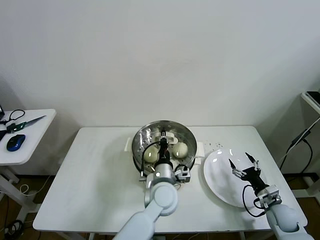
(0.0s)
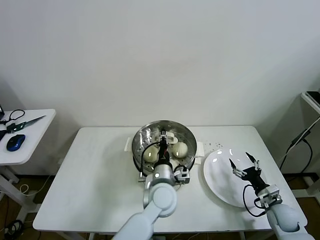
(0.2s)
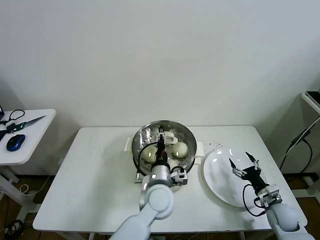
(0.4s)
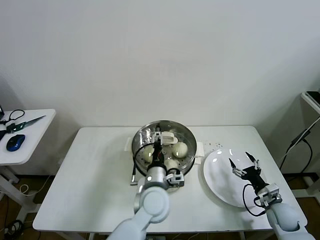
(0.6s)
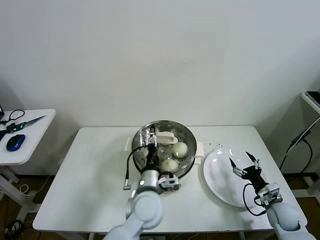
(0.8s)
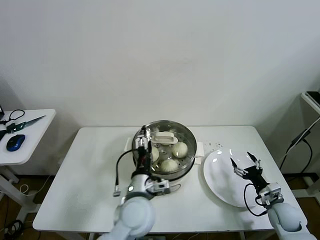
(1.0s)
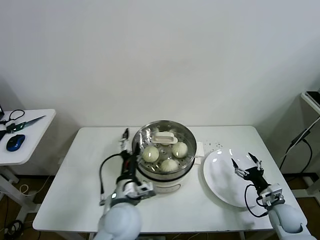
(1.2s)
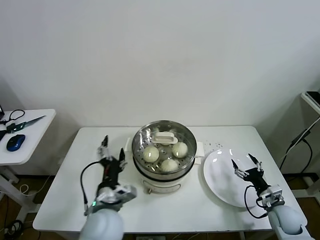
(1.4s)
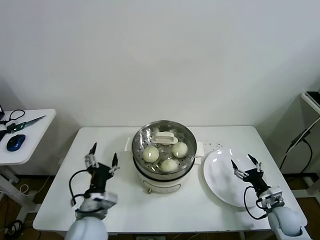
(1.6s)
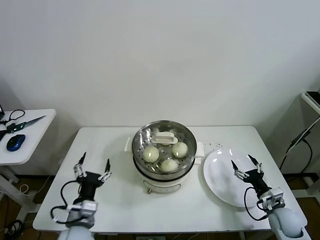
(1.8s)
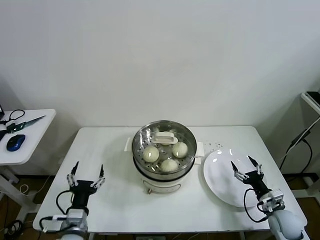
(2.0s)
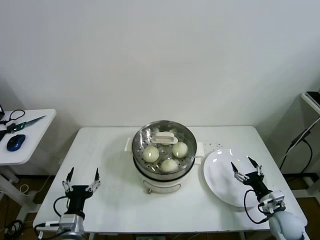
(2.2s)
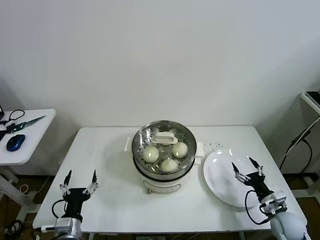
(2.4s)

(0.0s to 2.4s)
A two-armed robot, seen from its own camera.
Task of the whole recording: take steamed baozi put them in steamer then cover it.
0.0s - 1.2s: The left gripper travels to the left and backward by about 10 cm, and opens up.
1.2s - 2.4s: The left gripper is displaced to the left, downward and backward by approximately 25 cm.

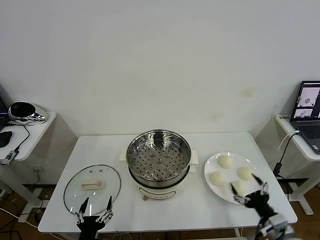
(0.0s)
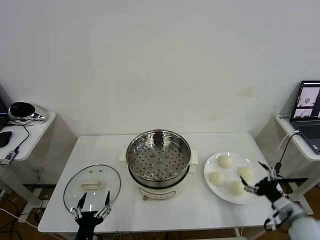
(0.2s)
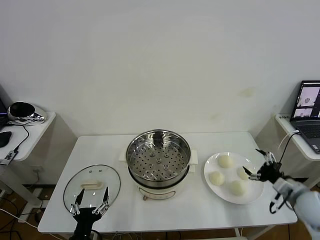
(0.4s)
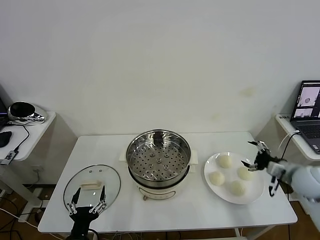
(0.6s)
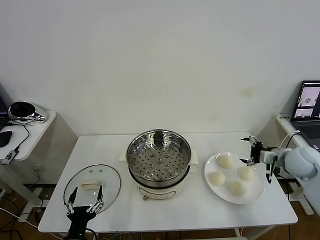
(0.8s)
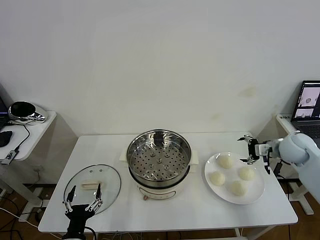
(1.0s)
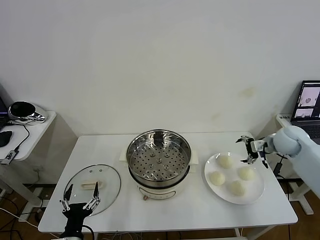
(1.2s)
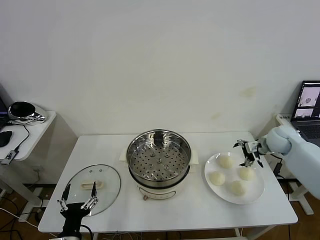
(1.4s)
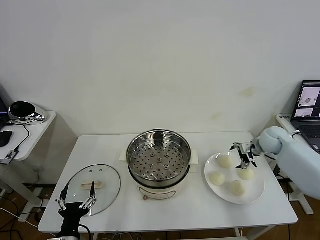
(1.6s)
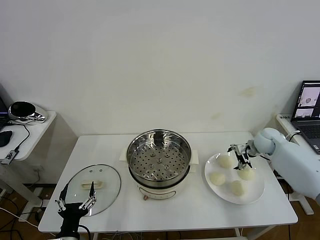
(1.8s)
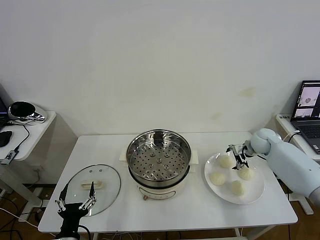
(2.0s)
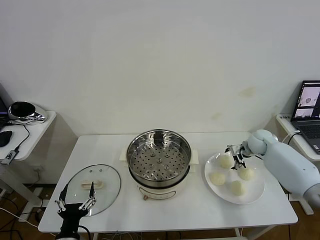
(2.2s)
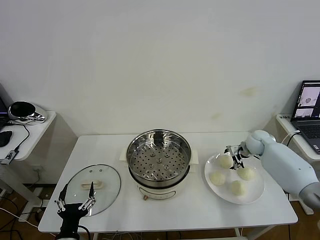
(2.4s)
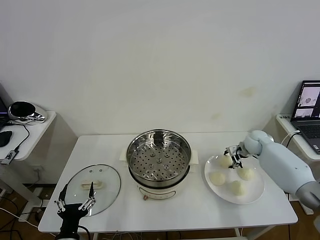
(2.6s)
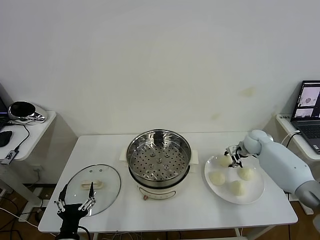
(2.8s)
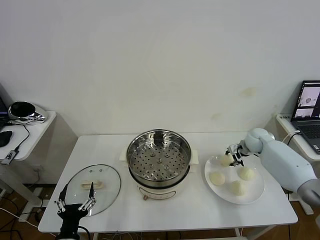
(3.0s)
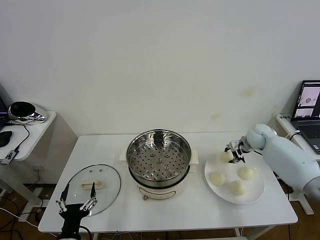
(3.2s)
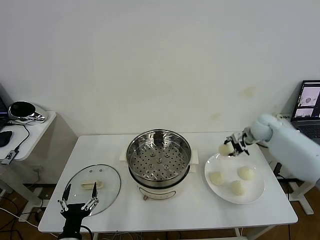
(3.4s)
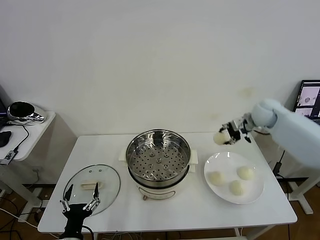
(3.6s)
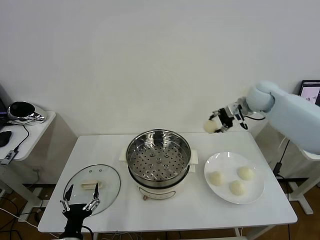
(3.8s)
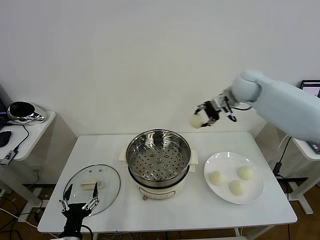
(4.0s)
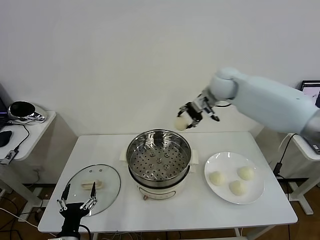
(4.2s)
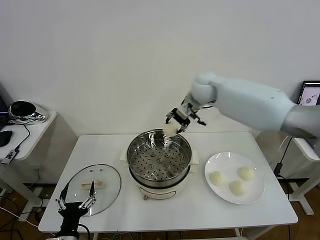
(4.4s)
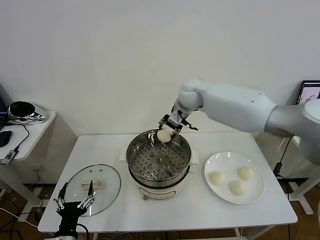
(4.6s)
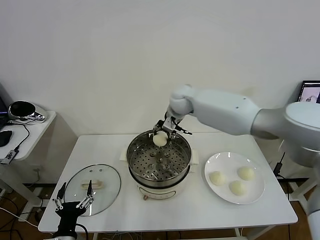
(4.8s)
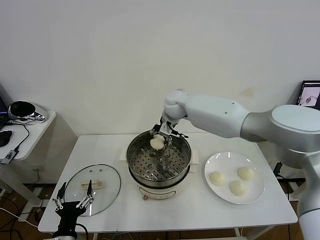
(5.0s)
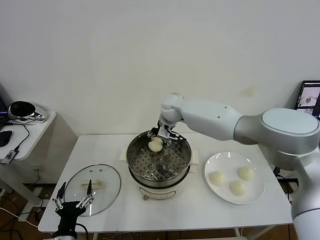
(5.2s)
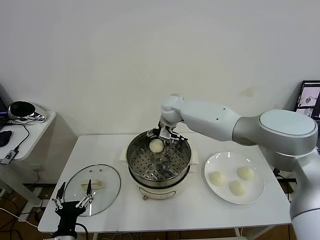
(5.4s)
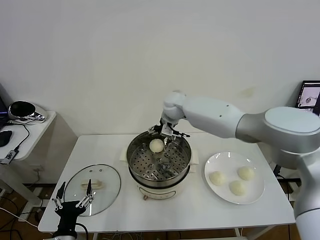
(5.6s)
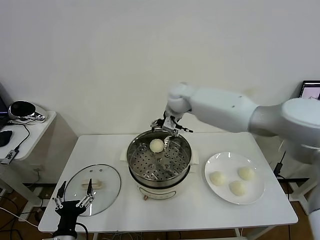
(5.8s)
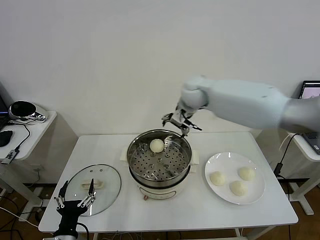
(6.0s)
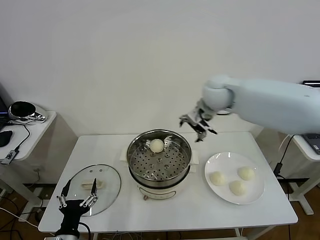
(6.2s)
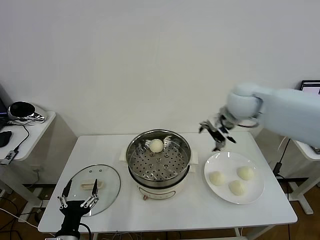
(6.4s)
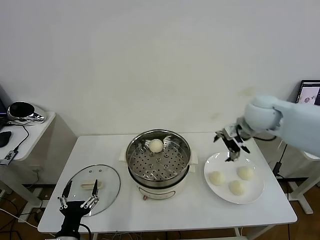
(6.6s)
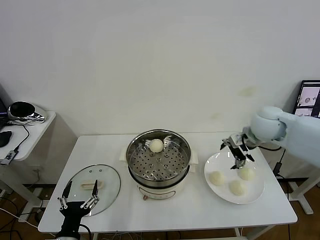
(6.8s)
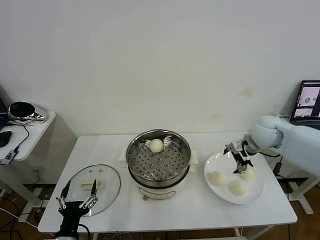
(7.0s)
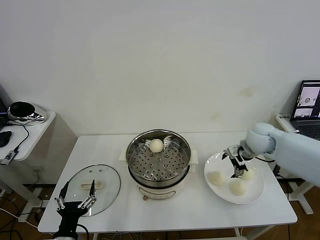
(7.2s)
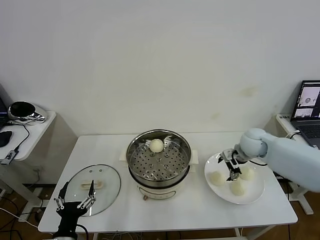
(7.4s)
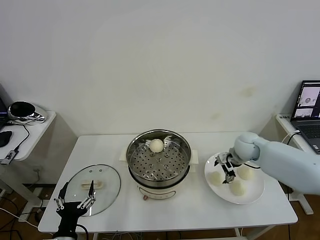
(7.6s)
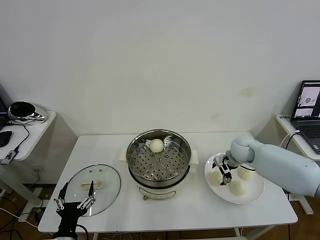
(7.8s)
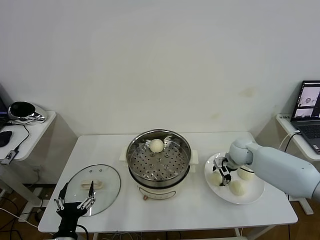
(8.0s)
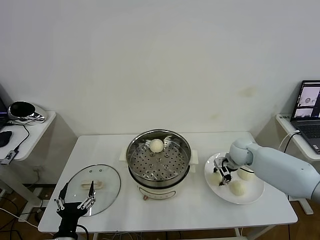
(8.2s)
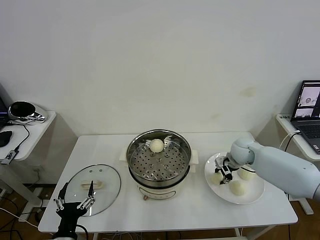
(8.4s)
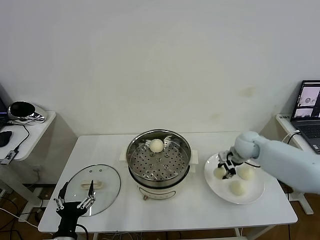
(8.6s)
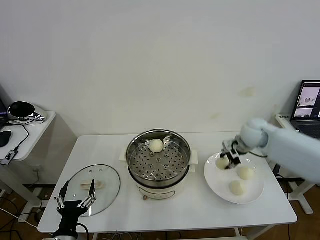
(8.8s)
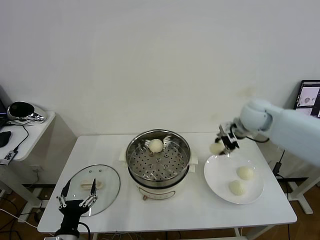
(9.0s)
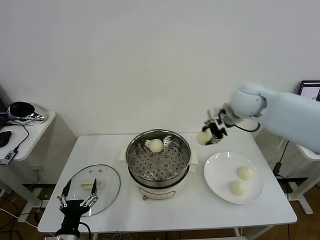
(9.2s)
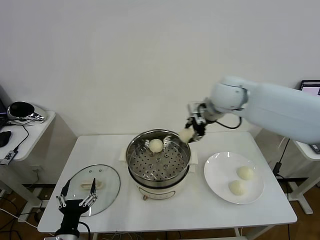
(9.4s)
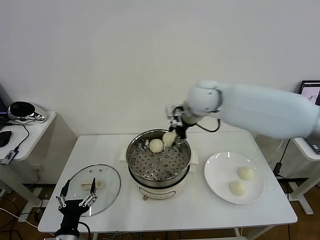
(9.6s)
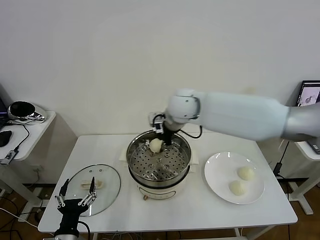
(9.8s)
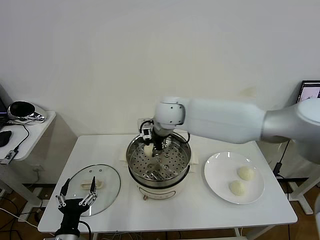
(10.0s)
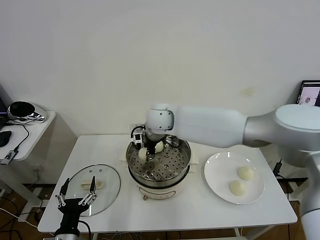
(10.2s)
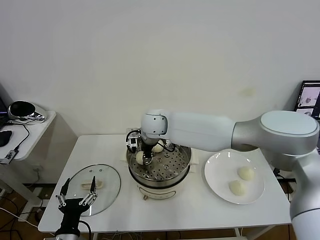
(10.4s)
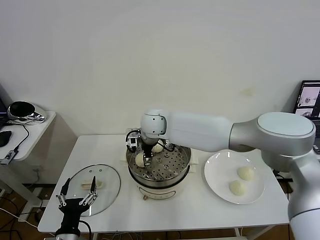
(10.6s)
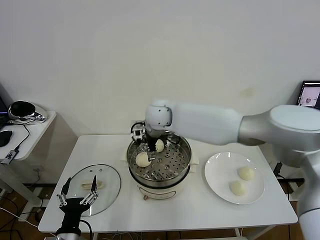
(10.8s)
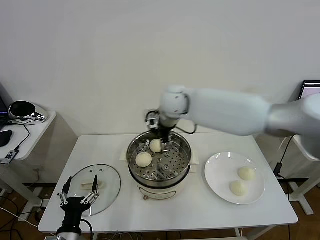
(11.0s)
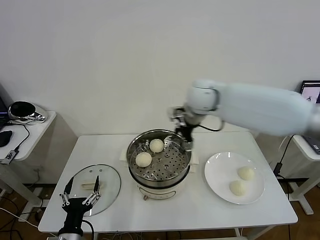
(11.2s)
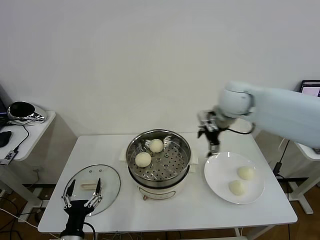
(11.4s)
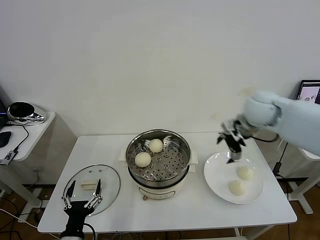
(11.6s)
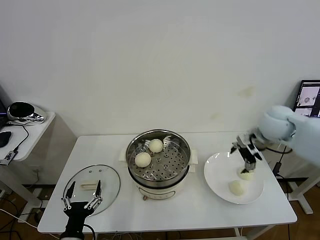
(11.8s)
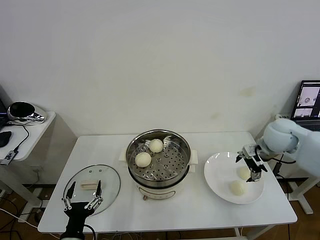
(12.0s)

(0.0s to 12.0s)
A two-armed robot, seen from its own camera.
Task of the whole recording: take steamed baozi put them in steamer then cover it.
Step, 0.0s - 2.6s: Grasp the baozi in the plate with right gripper.
Step, 2.8s - 5.6s: Place the baozi on the steamer with right gripper.
Step, 5.8s - 8.2s: Grasp the baozi in the plate with right gripper.
Step, 8.4s - 10.6s: Place the baozi on the steamer with right gripper.
1.6s - 3.0s: The right gripper changes place by roughly 5 cm, and closes up.
3.0s - 4.4s: The right gripper heads to the left and upward, covering roughly 35 cm.
4.4s - 6.0s: The right gripper moves about 10 cm downward and comes back, and opens its fingers.
6.0s - 7.6s: The right gripper moves to the right and downward, some 25 cm.
7.6s - 9.0s: The right gripper travels upward by roughly 15 cm, and closes.
9.0s - 10.4s: The right gripper goes approximately 30 cm to the left.
10.4s - 12.0s: The right gripper heads to the right, covering some 40 cm, and opens up.

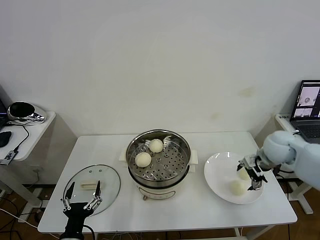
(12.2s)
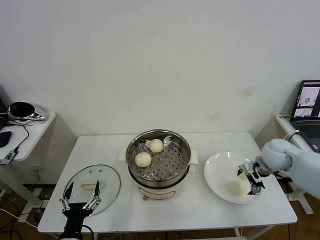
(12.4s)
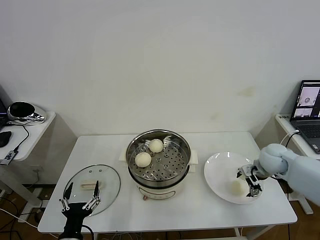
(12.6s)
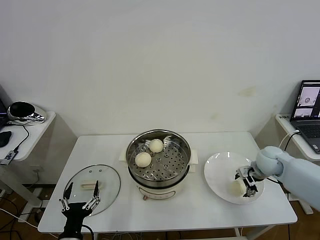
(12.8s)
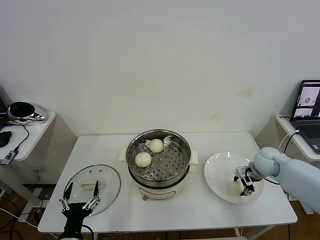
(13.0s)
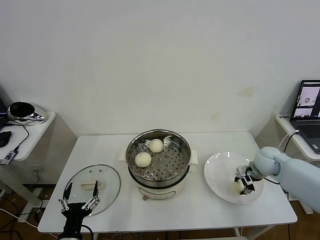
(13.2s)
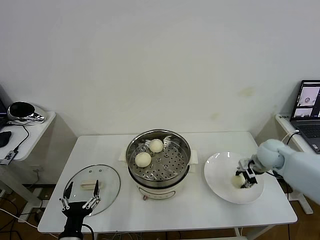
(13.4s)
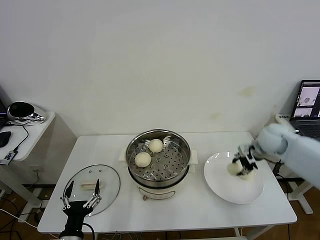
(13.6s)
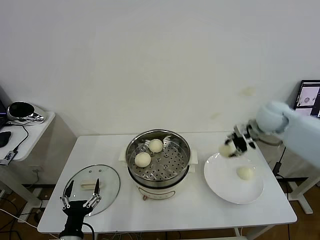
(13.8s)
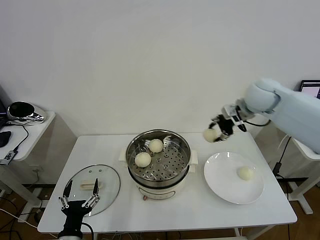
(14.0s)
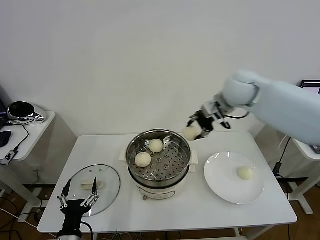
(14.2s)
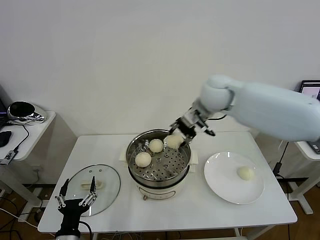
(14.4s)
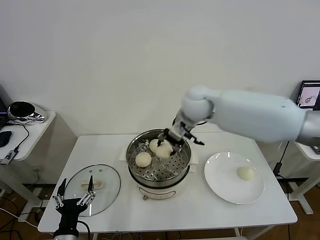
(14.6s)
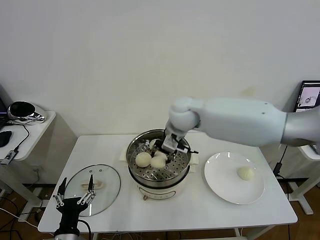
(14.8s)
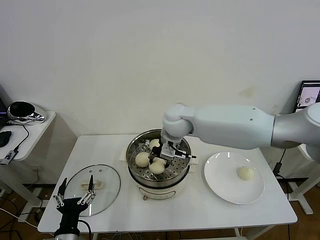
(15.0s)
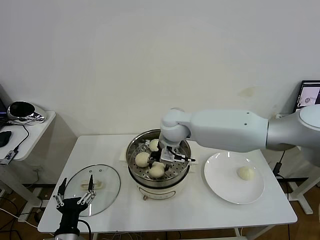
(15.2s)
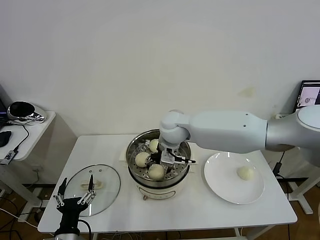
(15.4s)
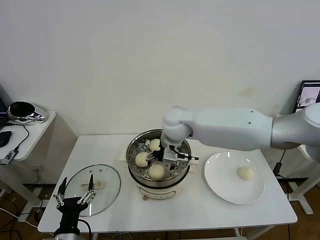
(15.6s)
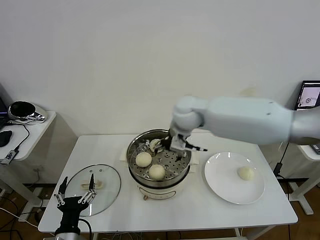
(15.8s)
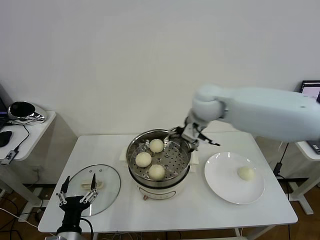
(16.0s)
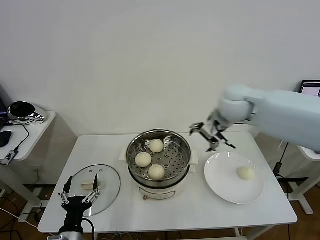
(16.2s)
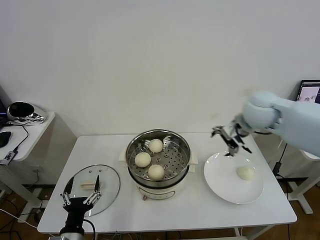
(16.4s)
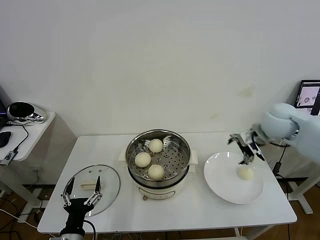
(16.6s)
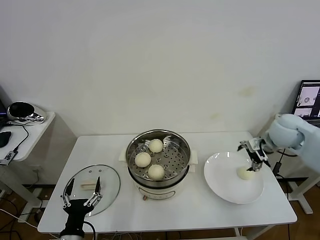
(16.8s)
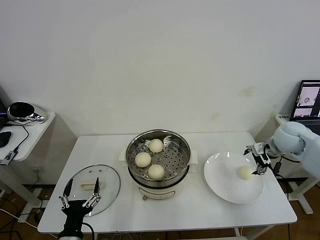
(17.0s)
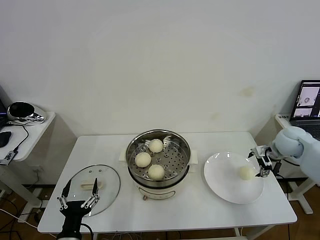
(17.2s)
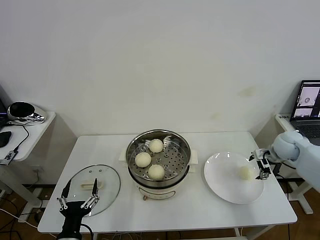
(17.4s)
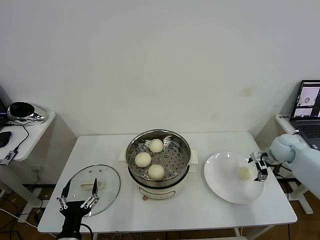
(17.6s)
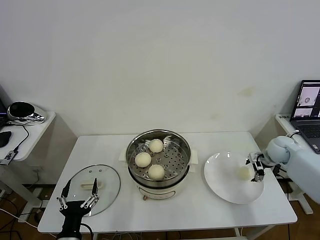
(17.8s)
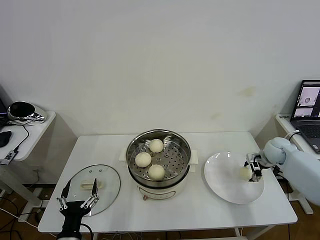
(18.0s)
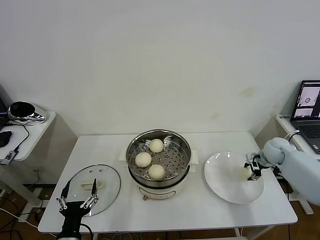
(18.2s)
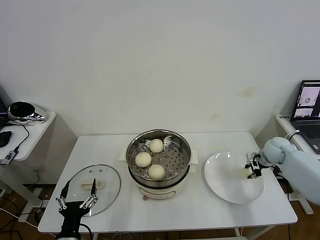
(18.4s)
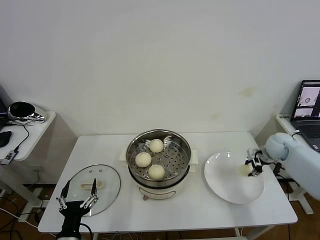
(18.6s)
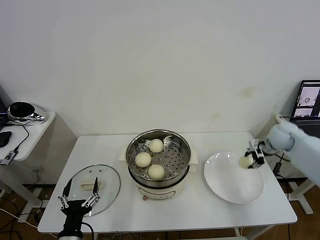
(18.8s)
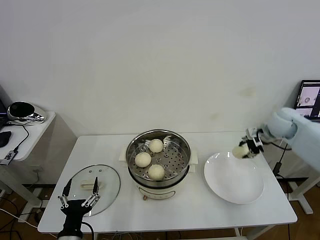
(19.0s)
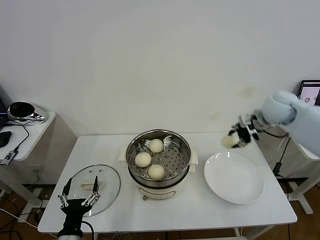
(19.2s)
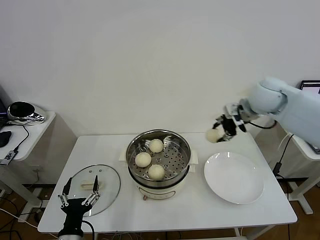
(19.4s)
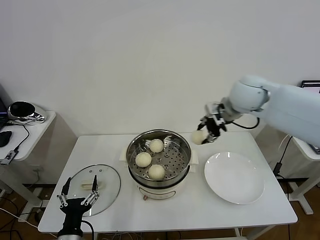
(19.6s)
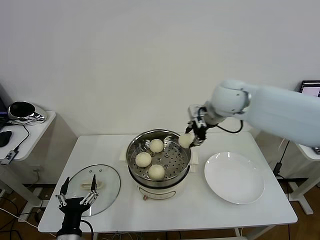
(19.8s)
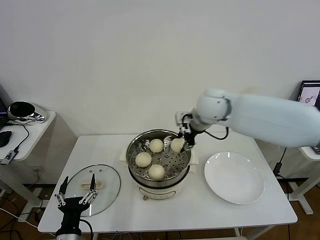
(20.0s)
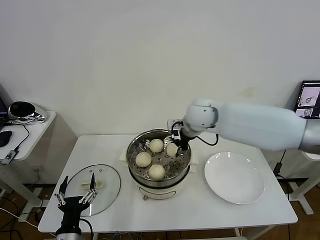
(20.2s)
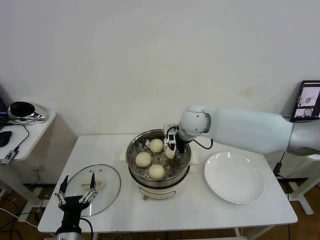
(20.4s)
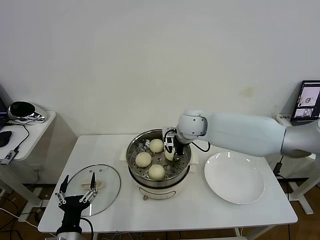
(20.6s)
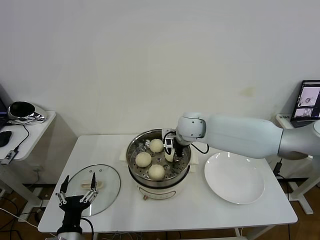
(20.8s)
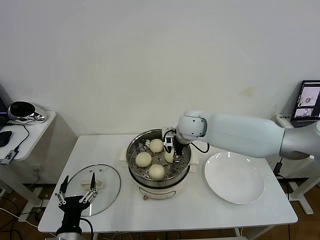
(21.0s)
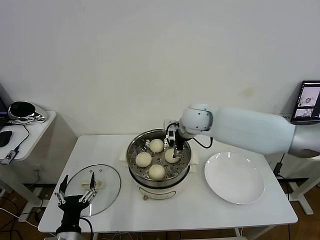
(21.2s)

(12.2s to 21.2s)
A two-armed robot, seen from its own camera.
Task of the whole recording: take steamed baozi put them in steamer then cover it.
Step, 13.2s - 15.6s: Place the baozi on the steamer with right gripper.
Step, 15.8s - 18.2s: Grasp the baozi in the plate with right gripper.
Step, 18.4s - 21.0s: Place the baozi on the steamer with right gripper.
12.2s - 13.8s: The right gripper is displaced upward and forward by roughly 10 cm, and closes up.
13.8s - 15.2s: The right gripper shifts approximately 30 cm to the left.
15.2s - 16.6s: The right gripper is displaced to the right by some 30 cm, and opens up.
16.6s - 18.2s: The right gripper moves downward and to the right, roughly 20 cm, and closes up.
18.2s - 19.8s: The right gripper heads to the left and upward, covering roughly 35 cm.
19.8s - 21.2s: The right gripper travels downward and to the left by about 10 cm, and opens its fingers.
